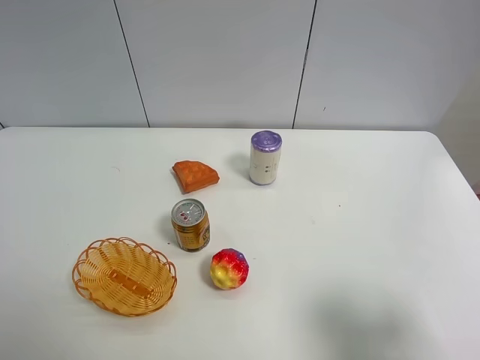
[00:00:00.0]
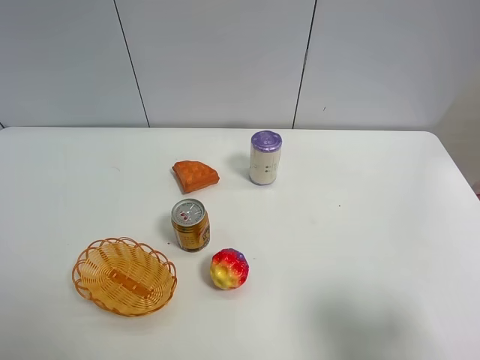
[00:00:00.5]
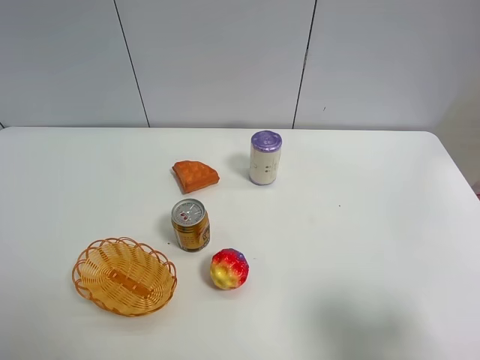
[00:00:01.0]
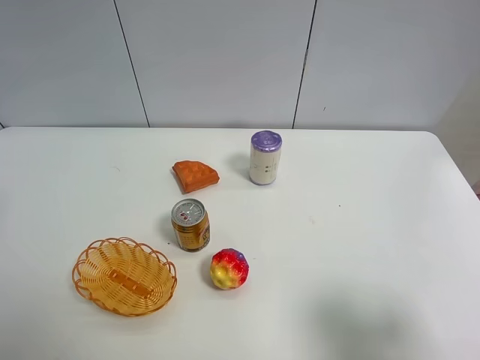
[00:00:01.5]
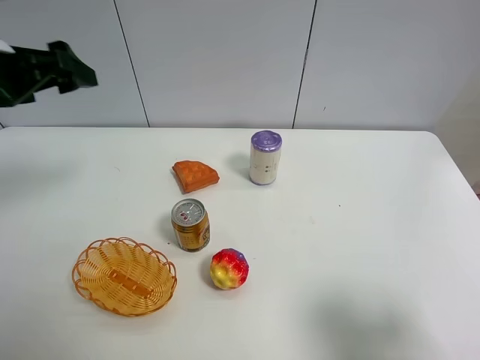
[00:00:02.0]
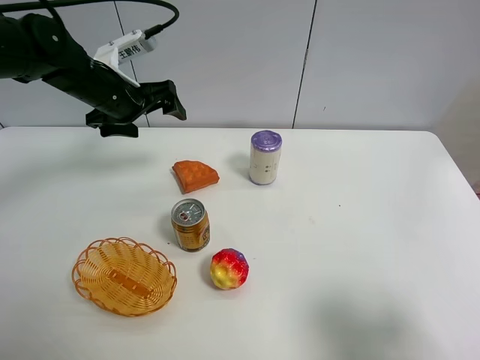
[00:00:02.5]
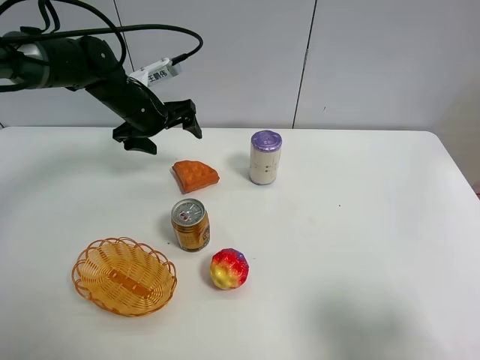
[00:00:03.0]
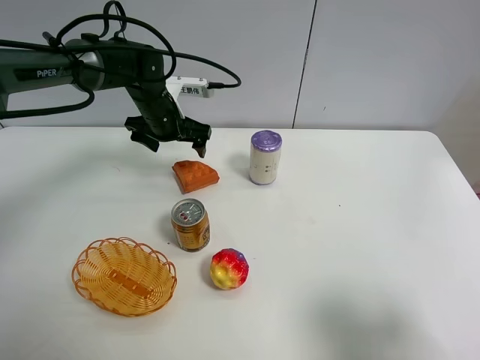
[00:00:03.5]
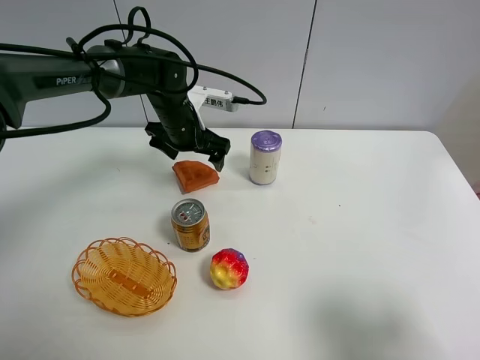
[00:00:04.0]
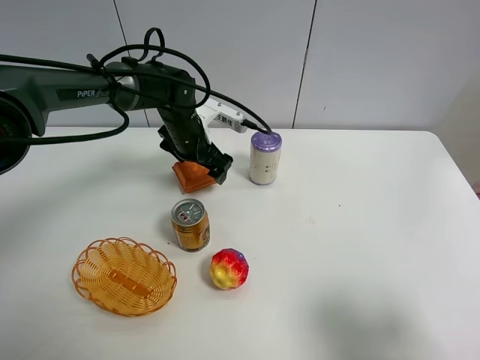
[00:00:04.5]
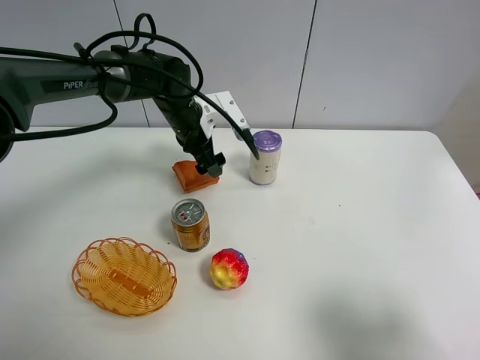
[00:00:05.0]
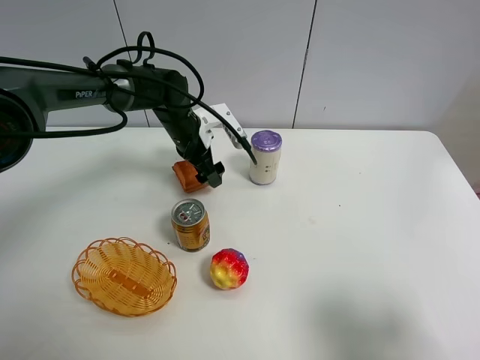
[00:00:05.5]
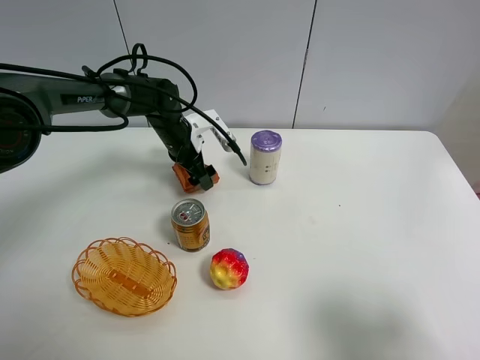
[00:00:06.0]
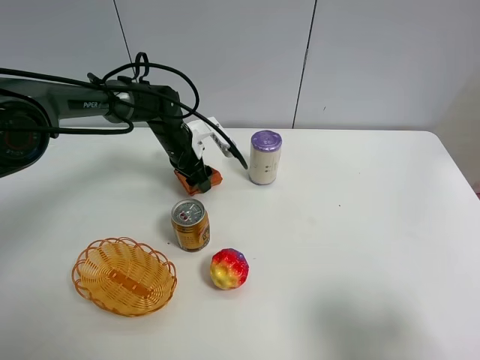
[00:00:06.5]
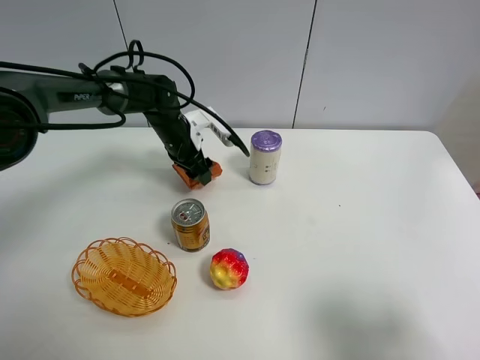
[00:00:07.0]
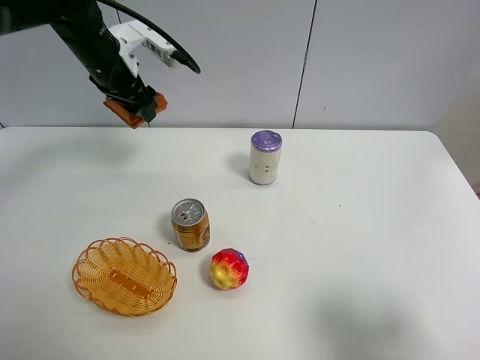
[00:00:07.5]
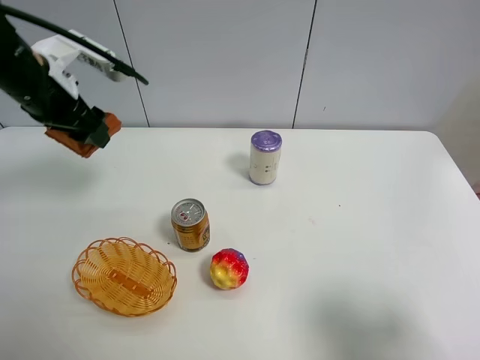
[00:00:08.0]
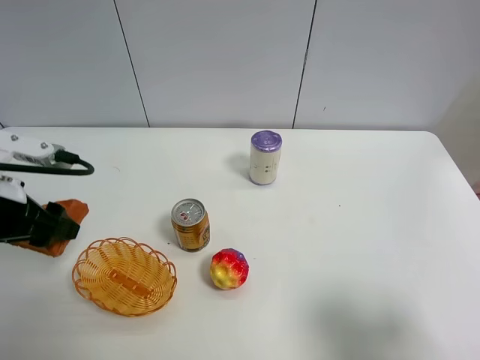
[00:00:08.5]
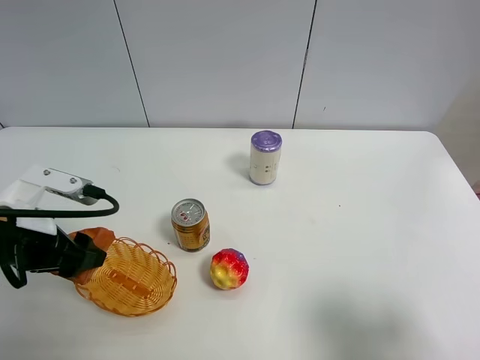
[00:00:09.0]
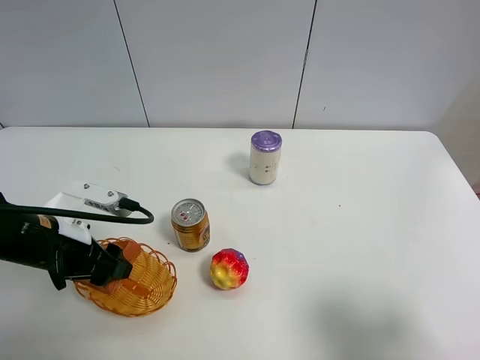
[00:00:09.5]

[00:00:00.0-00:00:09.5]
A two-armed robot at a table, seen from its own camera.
Task of the whole recording: Put the bakery in the basket.
00:00:00.0 to 00:00:02.0: The left gripper moves forward, roughly 30 cm.
00:00:02.0 to 00:00:04.0: The left gripper moves to the right, downward and forward, roughly 25 cm.
00:00:05.5 to 00:00:07.5: The left gripper goes about 20 cm upward and to the left, and closes.
00:00:07.5 to 00:00:09.5: The left gripper is displaced backward and downward by approximately 25 cm.

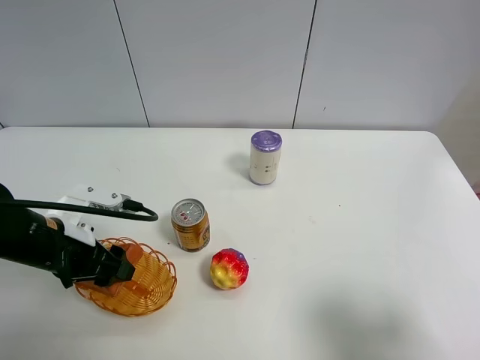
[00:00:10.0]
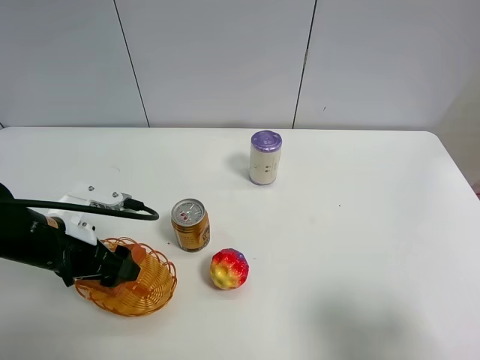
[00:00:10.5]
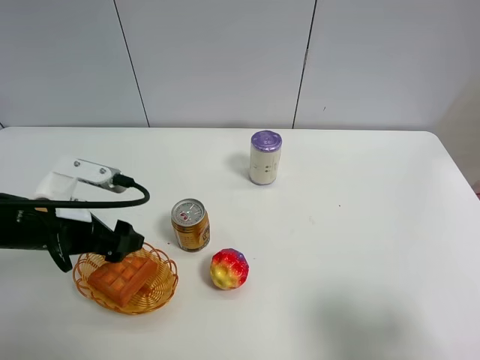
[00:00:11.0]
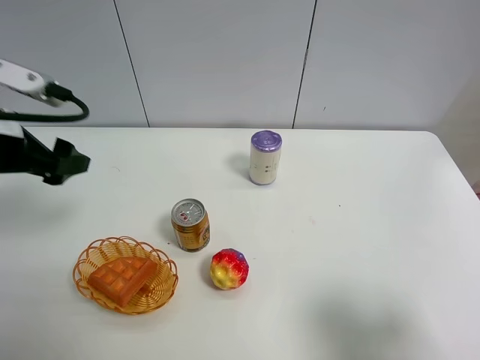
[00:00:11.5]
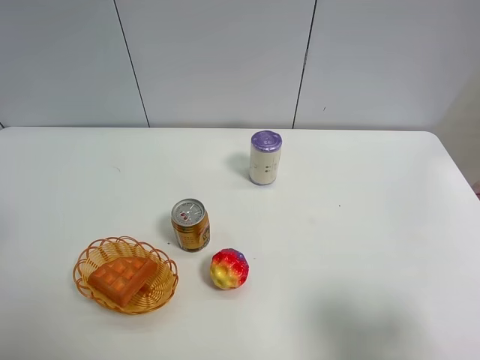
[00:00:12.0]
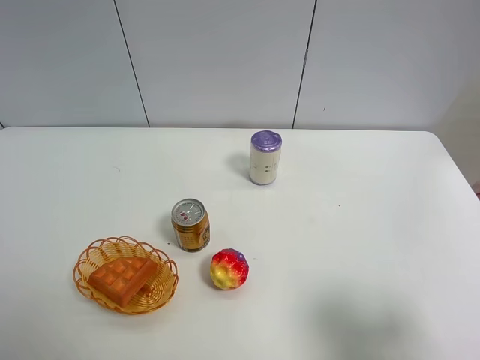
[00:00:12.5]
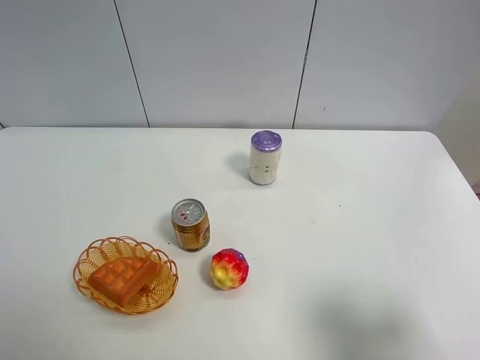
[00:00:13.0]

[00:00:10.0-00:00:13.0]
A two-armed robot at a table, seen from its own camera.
Task of the whole recording: Put the bakery in the basket.
00:00:10.0 to 00:00:11.5: The left gripper goes some 15 cm upward, and opens up.
00:00:11.5 to 00:00:13.0: The left gripper is displaced backward by some 25 cm.
